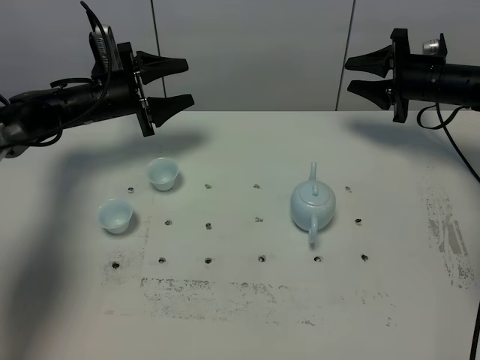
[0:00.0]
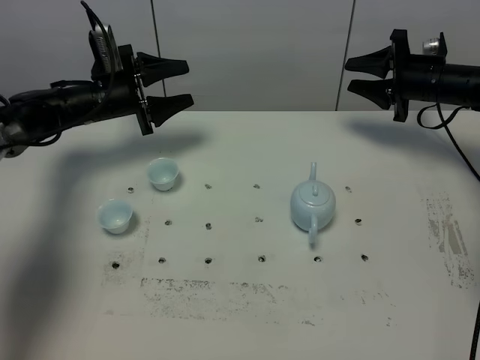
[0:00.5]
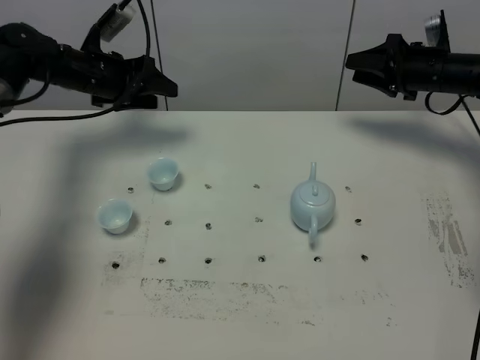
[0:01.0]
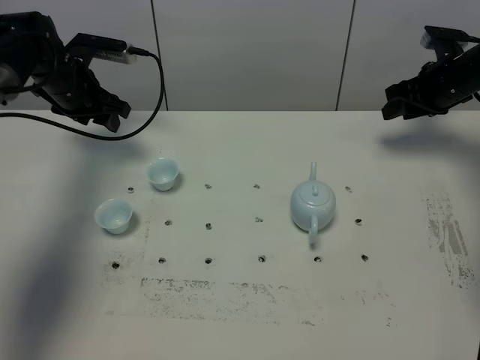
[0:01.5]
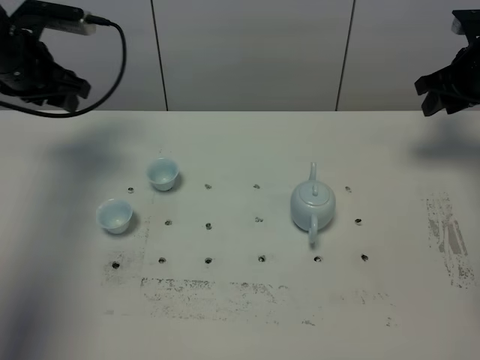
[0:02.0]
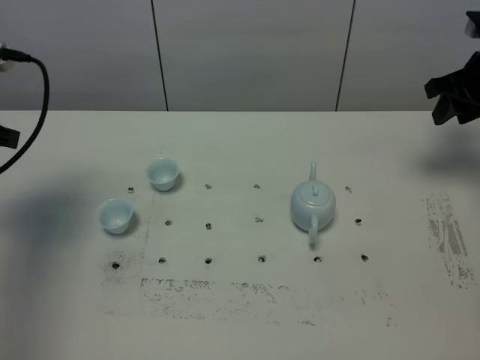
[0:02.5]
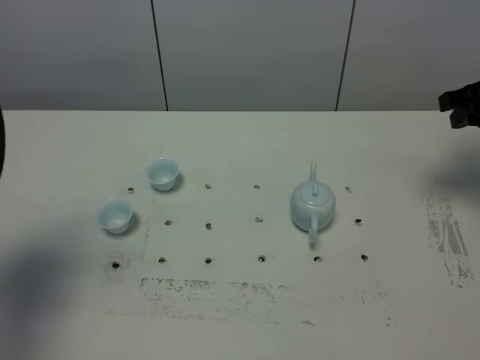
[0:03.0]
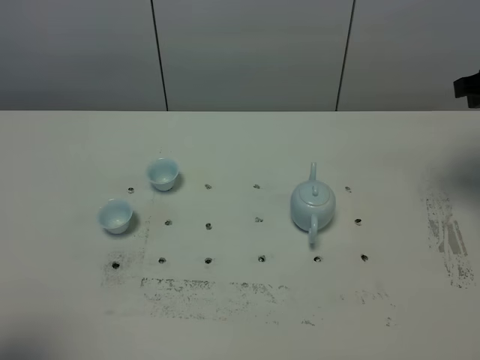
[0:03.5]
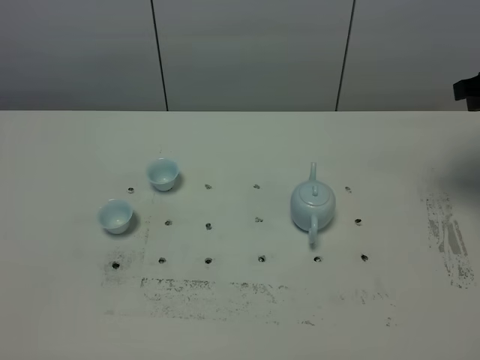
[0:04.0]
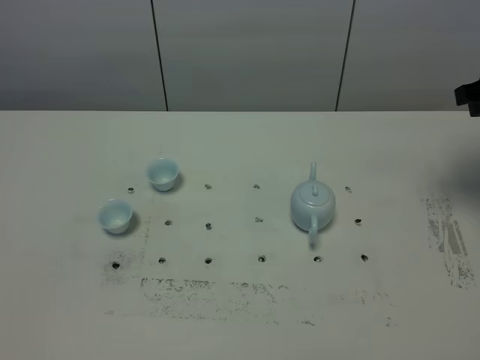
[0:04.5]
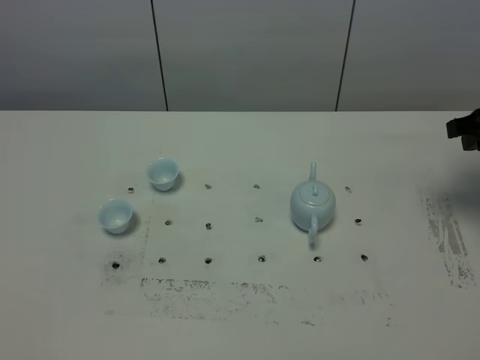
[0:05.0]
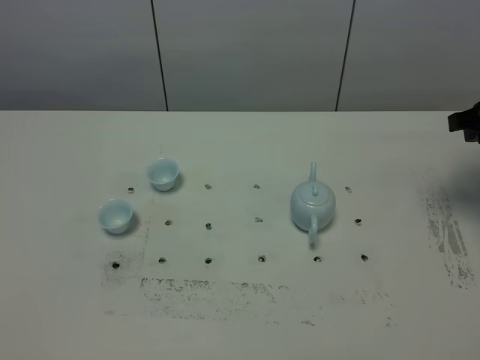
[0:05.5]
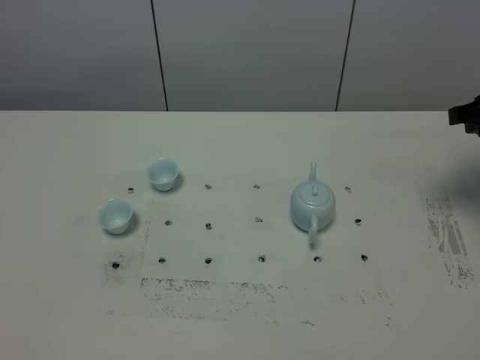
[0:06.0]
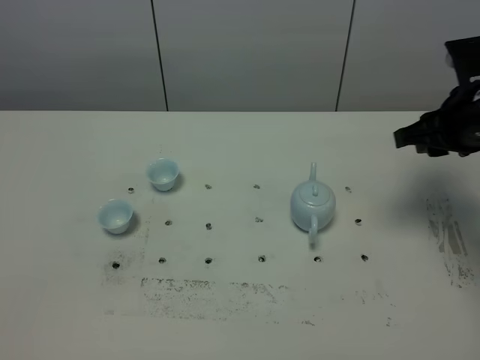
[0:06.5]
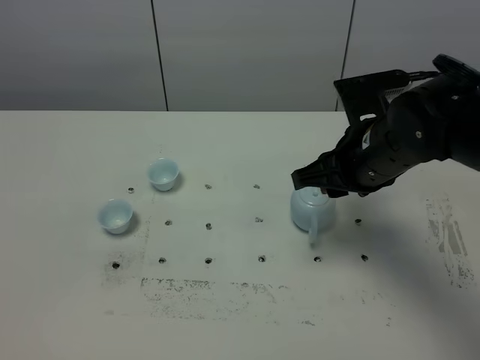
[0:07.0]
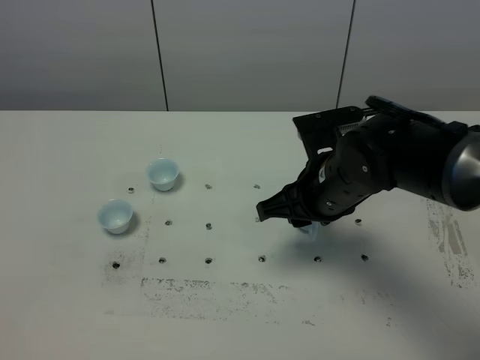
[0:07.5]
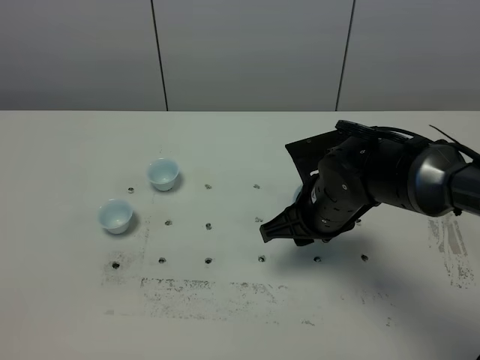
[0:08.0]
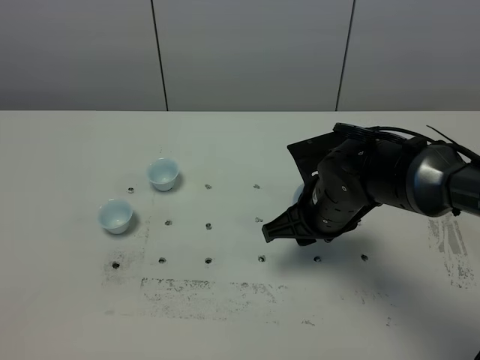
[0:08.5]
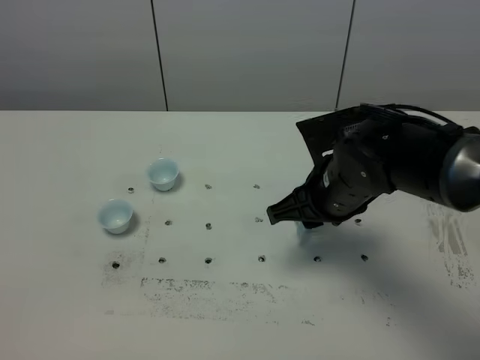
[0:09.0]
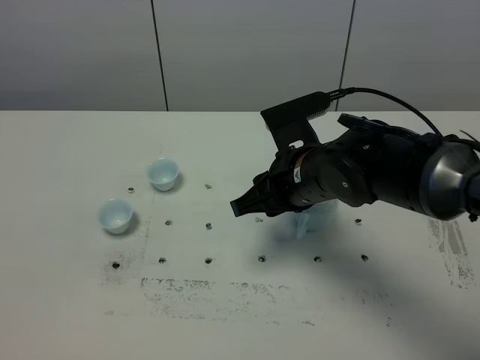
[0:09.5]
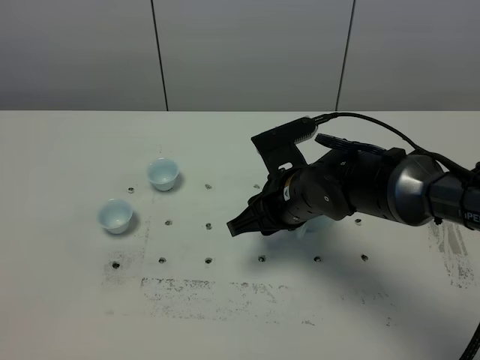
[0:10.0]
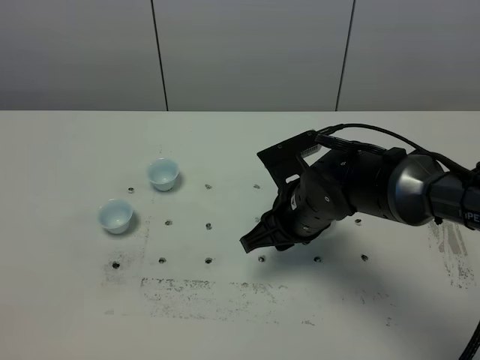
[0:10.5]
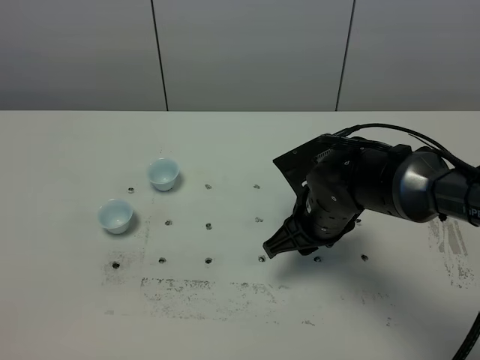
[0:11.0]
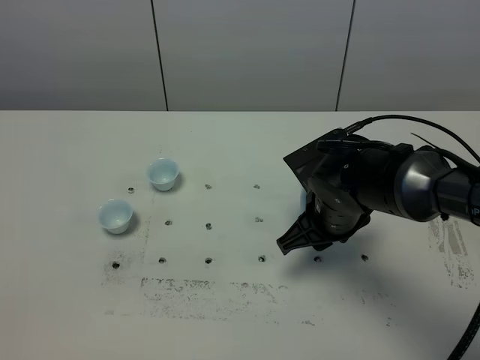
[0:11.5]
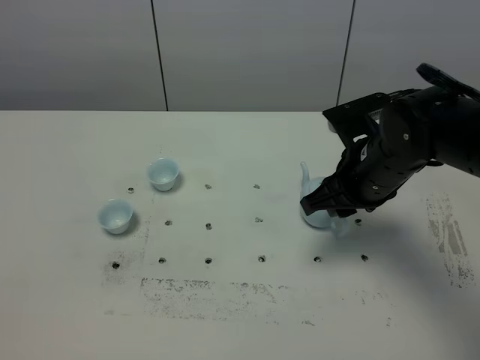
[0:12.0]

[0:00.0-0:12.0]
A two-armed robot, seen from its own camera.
Task of the whole recording: grasp the blue porcelain teapot and pour the tea into the two blue porcelain teacups one by one, put the blue porcelain teapot back in its original place.
0:00.0 to 0:02.0: The left gripper heads upward, to the left and backward, covering approximately 15 cm; the right gripper travels upward by approximately 5 cm.
0:02.0 to 0:04.0: The left gripper is displaced backward by roughly 50 cm, and closes its fingers. The right gripper shifts about 10 cm backward and upward.
0:06.0 to 0:08.0: The right gripper moves to the left and downward, approximately 25 cm.
0:08.0 to 0:10.0: The grippers stay close to where they were, moving slightly.
0:10.0 to 0:12.0: The right gripper is displaced to the right by approximately 10 cm.

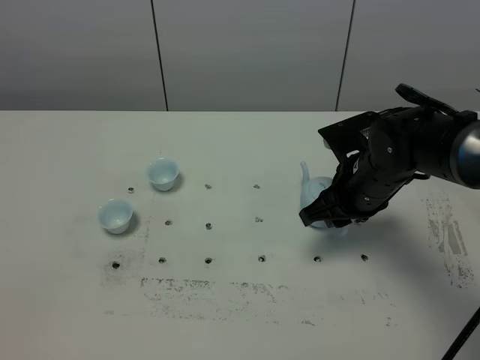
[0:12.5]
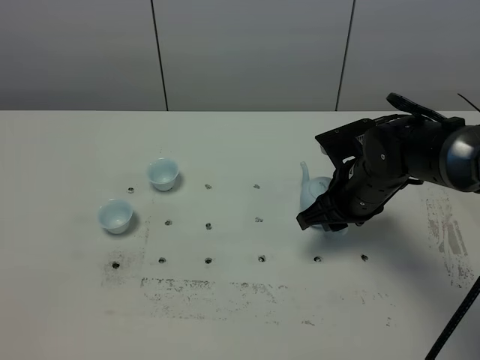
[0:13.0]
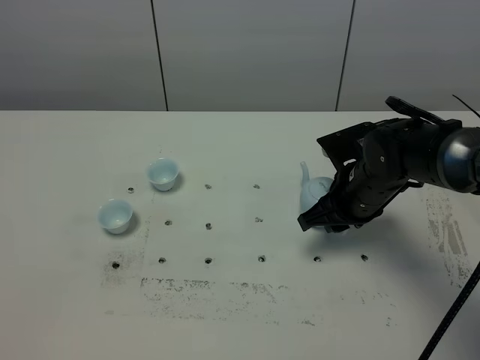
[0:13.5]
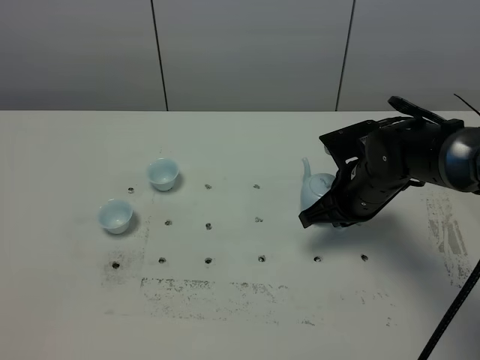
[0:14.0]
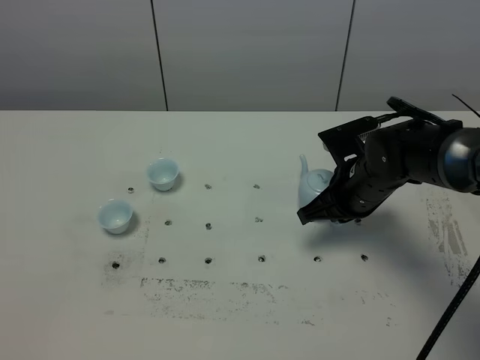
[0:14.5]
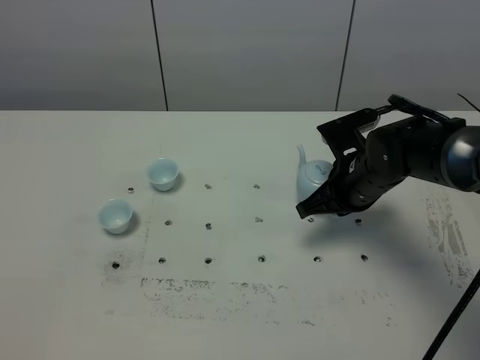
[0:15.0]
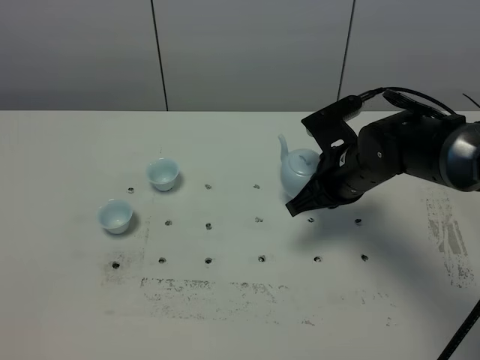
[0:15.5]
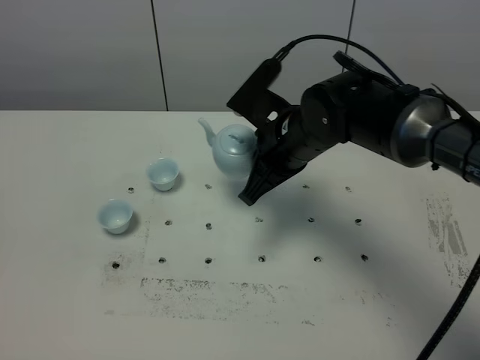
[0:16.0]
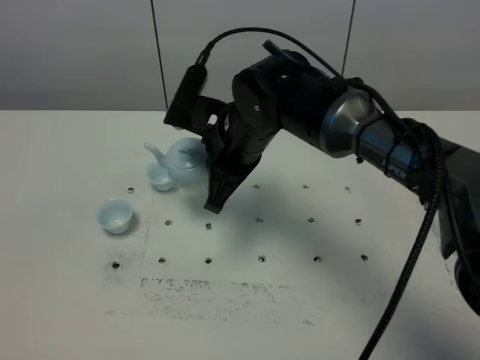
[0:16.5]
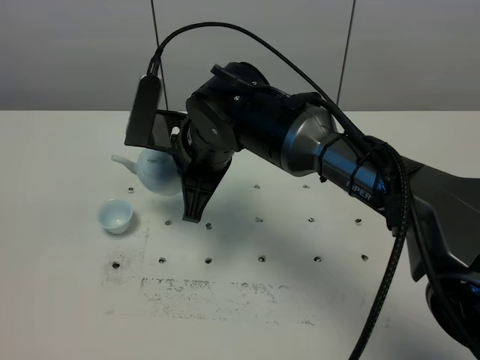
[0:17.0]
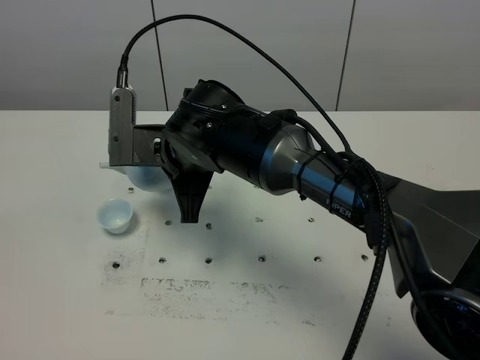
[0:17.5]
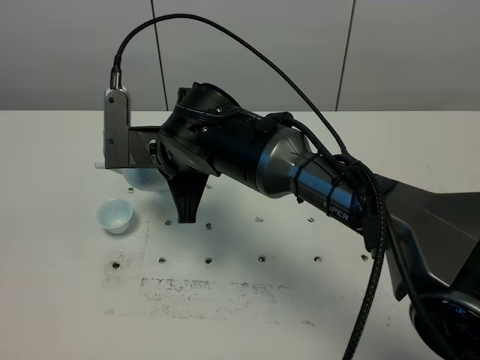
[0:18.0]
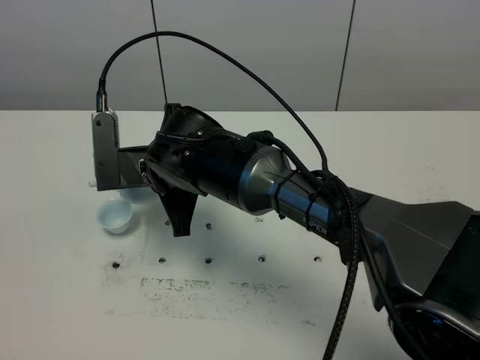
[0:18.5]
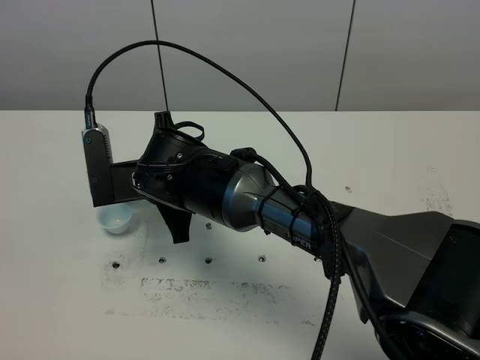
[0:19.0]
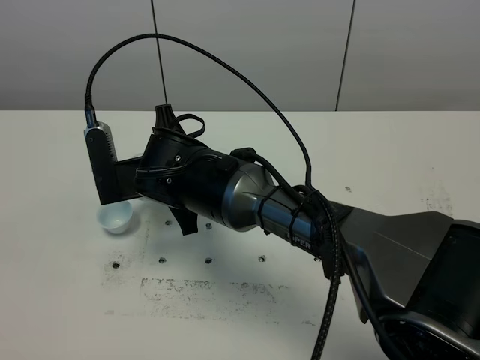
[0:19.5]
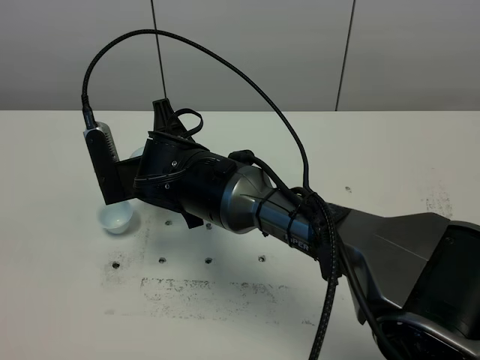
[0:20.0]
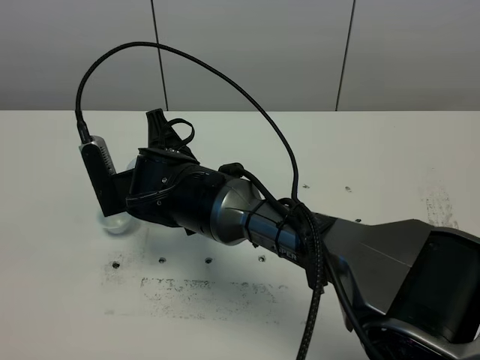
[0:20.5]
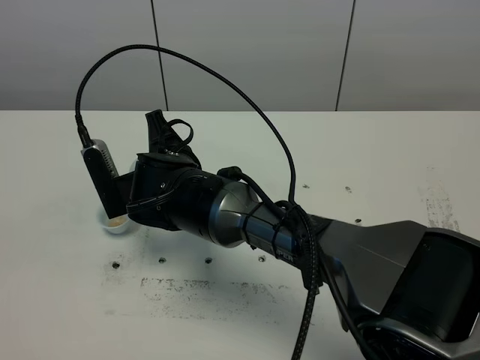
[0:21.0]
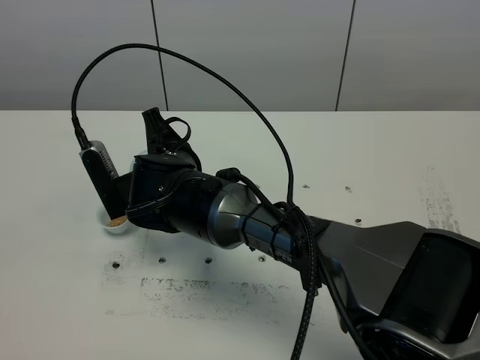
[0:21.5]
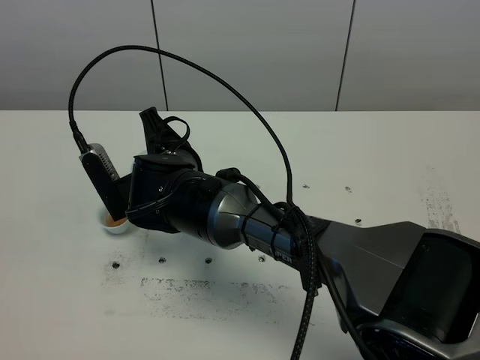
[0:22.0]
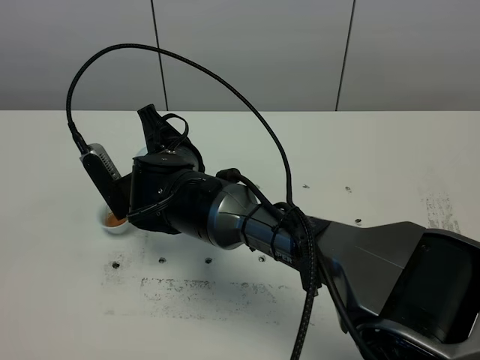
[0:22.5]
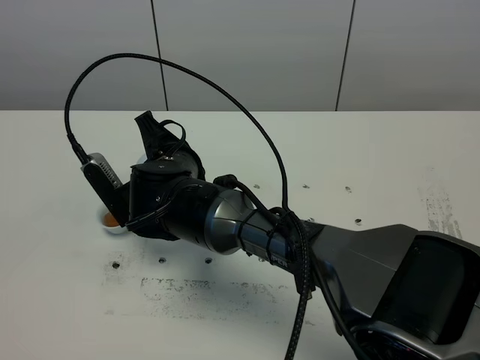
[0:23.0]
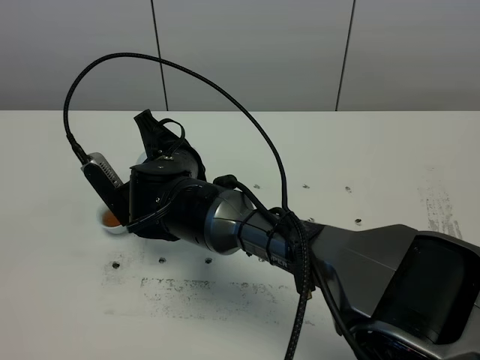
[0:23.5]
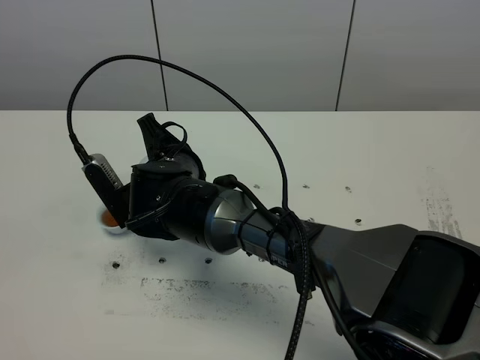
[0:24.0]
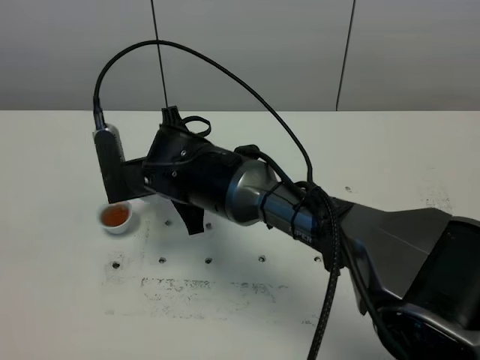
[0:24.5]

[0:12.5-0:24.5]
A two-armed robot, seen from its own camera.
Task of the whole recording: grasp the blue porcelain teapot and pour the tea into the two blue porcelain teacups one by one, put the blue porcelain teapot back in its original place.
Step, 0:12.5 to 0:15.5: Pick up the teapot with the right gripper.
0:12.5 to 0:14.5: The right gripper closes up.
0:14.5 to 0:16.5: The right gripper shifts approximately 20 cm to the left and upward.
0:16.5 to 0:18.5: The right gripper travels to the left by some 5 cm.
0:20.5 to 0:22.5: The grippers stay close to where they were, moving slightly.

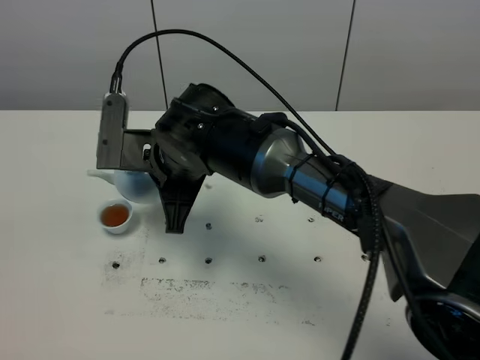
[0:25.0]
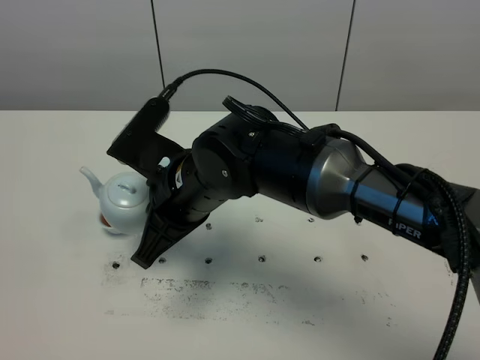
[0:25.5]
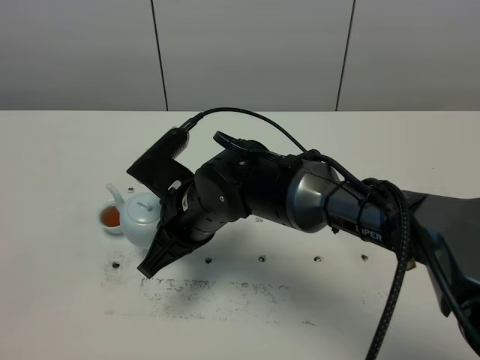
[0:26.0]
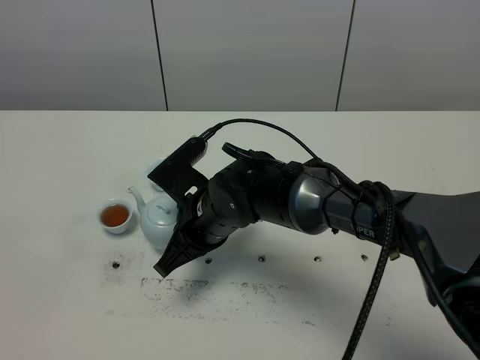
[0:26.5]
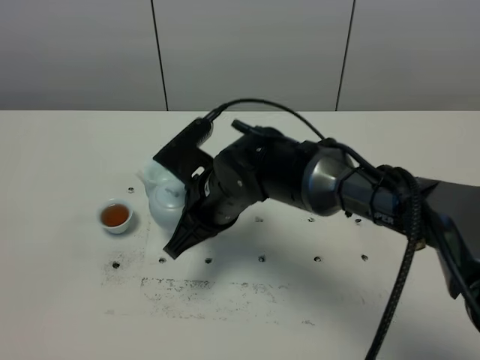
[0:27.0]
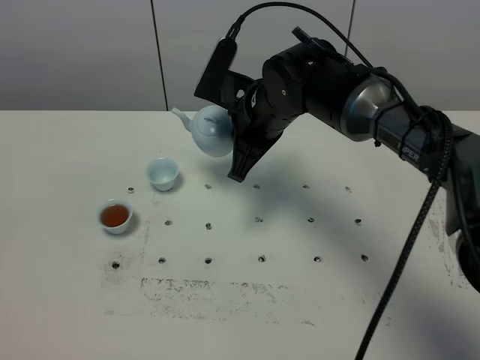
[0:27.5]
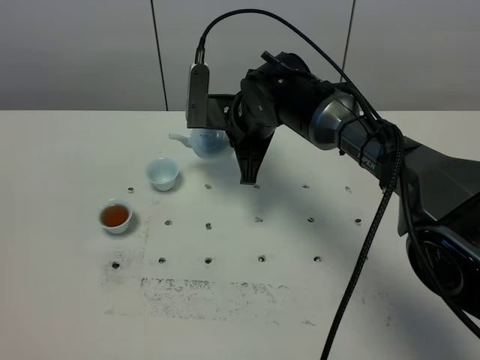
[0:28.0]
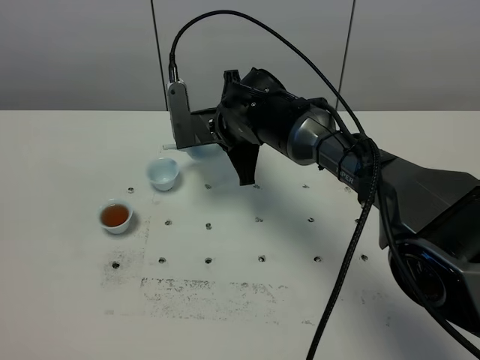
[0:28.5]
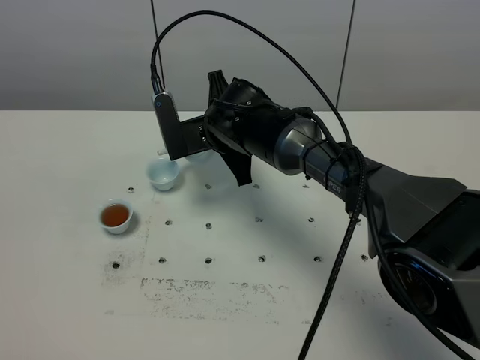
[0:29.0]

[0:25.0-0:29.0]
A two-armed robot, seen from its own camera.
Task of the whole recording: grasp the blue porcelain teapot and pour the tea into the two blue porcelain teacups one by one, put the blue porcelain teapot back in its original place.
0:25.0 to 0:27.0: The right gripper changes place by roughly 5 cm.
0:27.0 to 0:29.0: The right gripper heads forward, covering about 10 cm.
